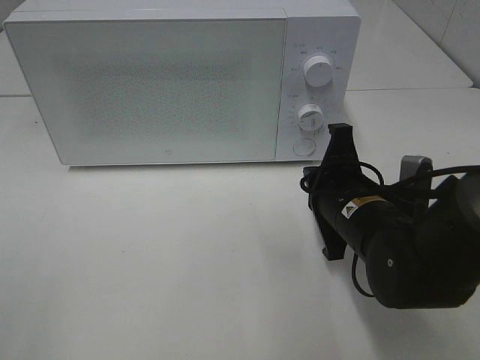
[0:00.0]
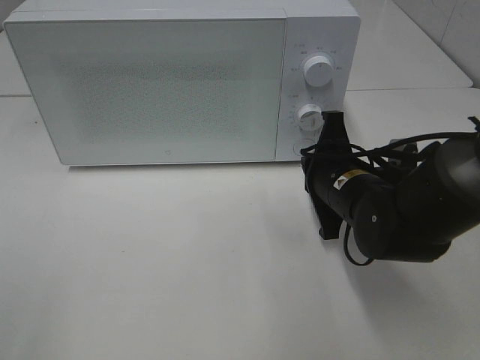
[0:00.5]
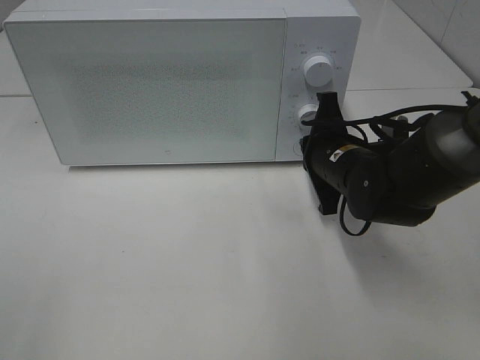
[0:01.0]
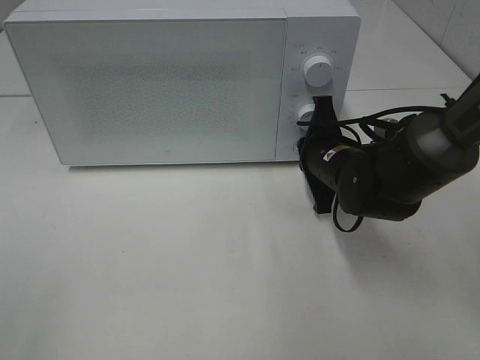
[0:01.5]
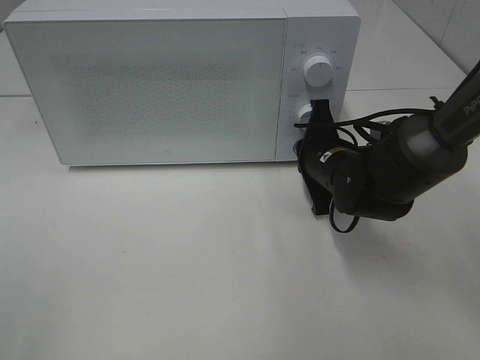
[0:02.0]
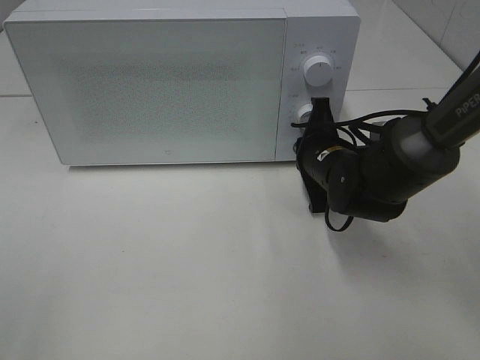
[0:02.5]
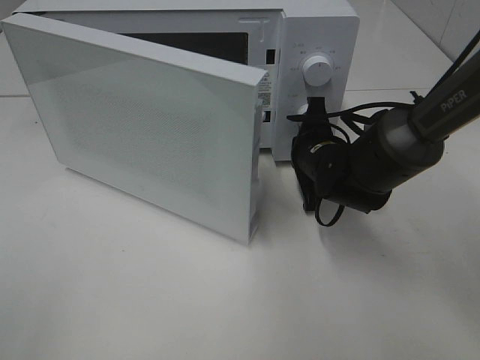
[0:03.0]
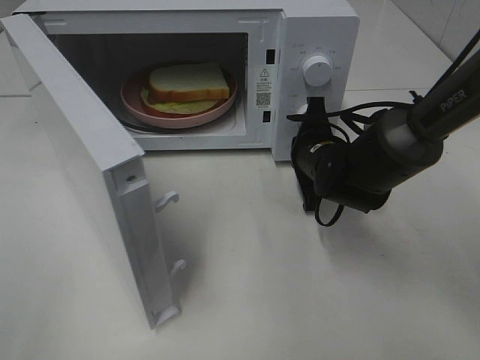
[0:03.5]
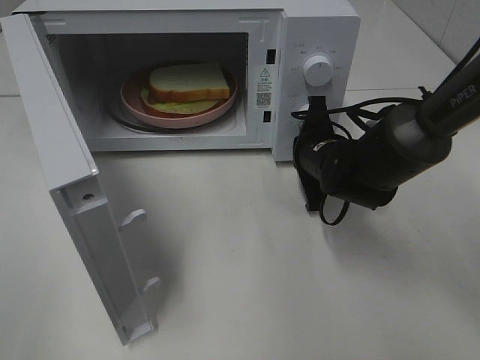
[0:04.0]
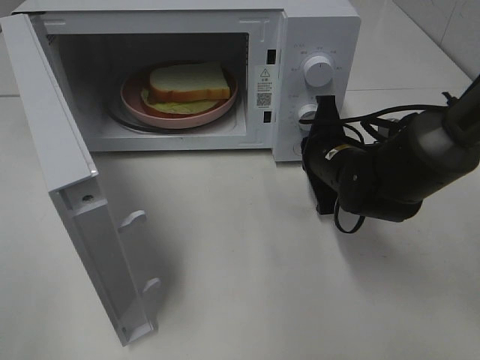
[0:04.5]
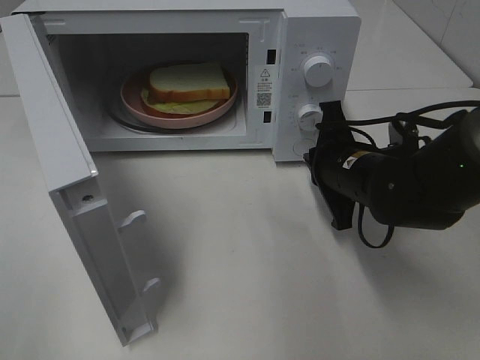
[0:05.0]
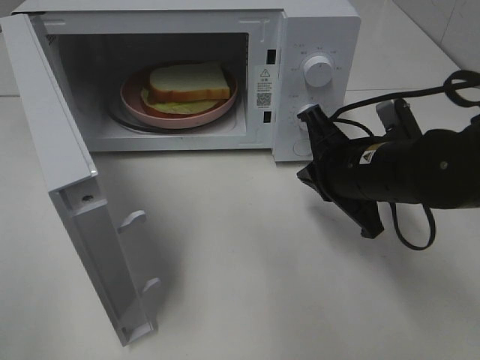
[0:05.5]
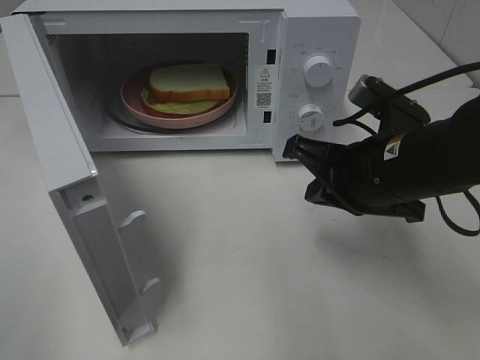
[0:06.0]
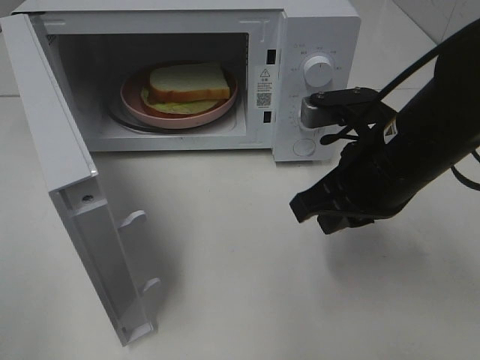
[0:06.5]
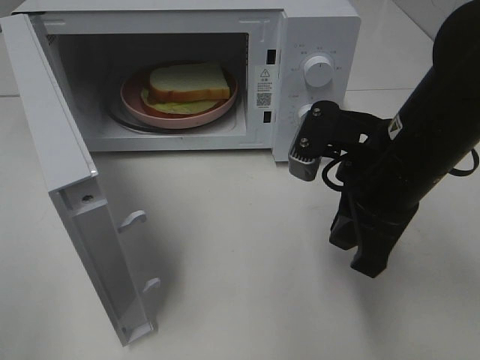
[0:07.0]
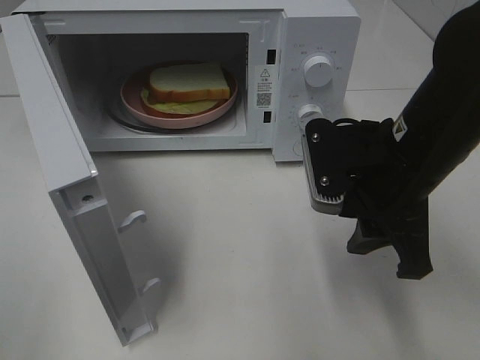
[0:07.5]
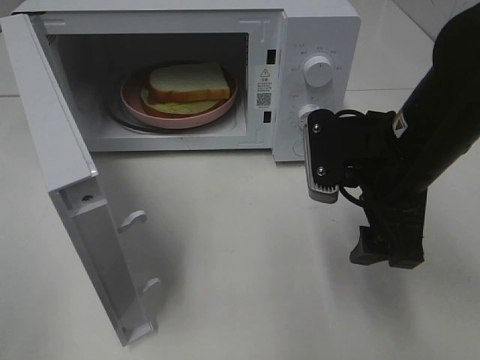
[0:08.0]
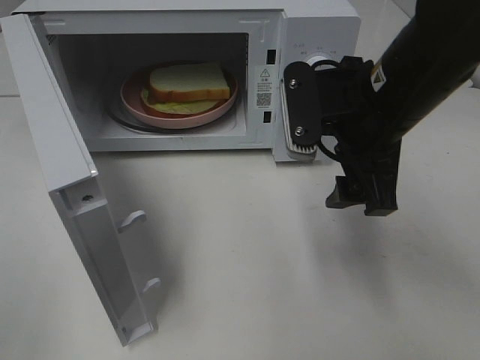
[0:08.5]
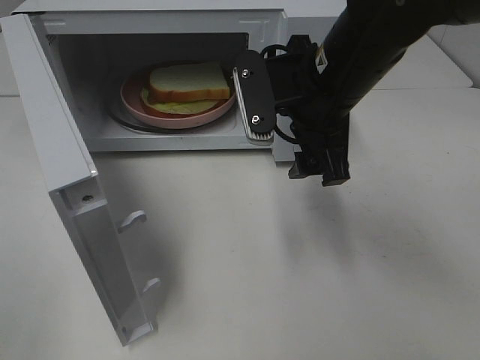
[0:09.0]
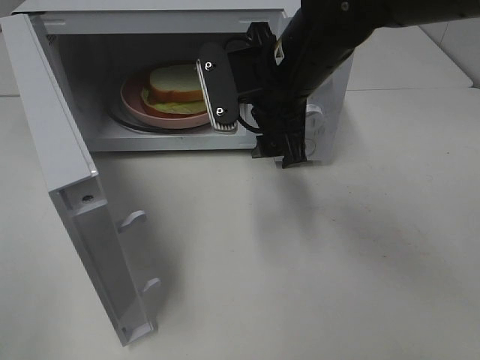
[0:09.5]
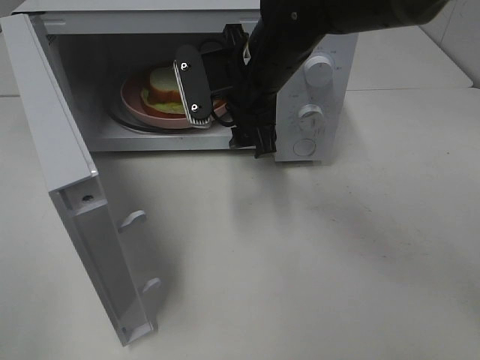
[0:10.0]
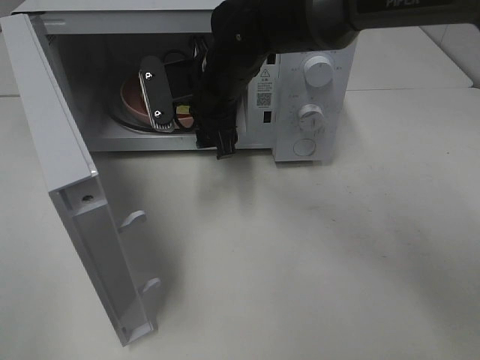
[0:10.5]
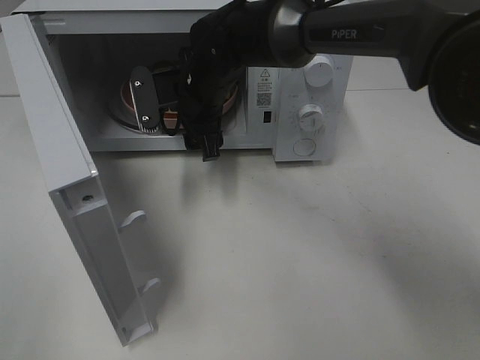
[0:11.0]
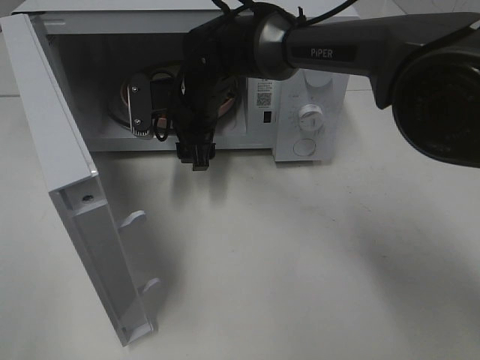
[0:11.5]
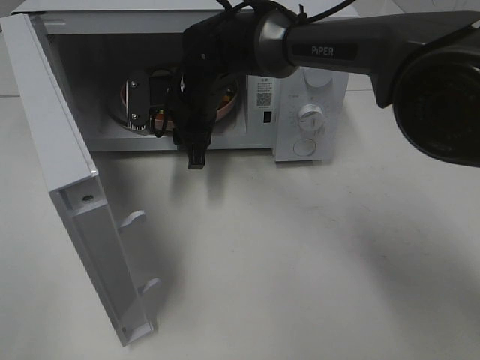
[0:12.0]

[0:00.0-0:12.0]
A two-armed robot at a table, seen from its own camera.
Task of the whole recording: Heat Sandwich.
Step, 0:00.0 to 0:04.5: Right hand: press the switch.
0:00.0 to 0:02.0: The right gripper is displaced forward by some 10 cm.
0:04.0 to 0:06.0: The right gripper is displaced backward and upward by about 15 cm.
0:06.0 to 0:08.0: The right gripper opens up.
0:08.0 to 0:10.0: The right gripper is displaced to the left and forward by about 15 cm.
0:10.0 to 0:12.0: The right gripper heads to the left, downward and forward, covering roughly 10 cm, and closes.

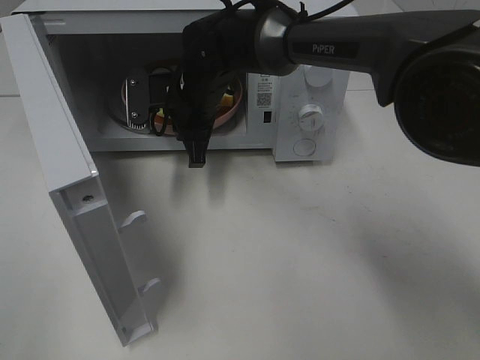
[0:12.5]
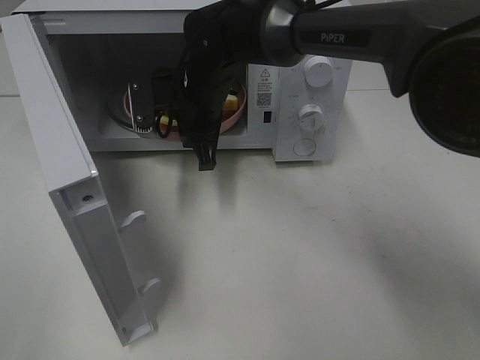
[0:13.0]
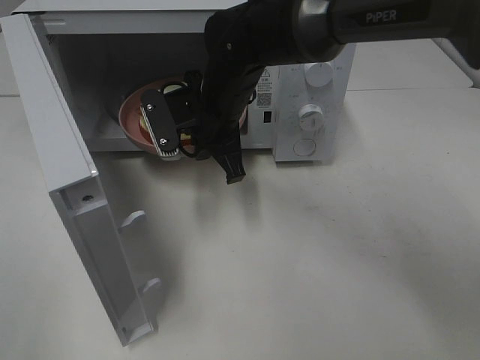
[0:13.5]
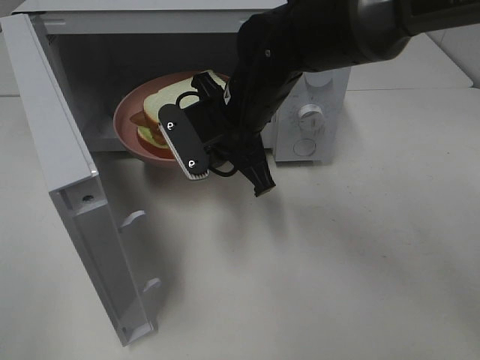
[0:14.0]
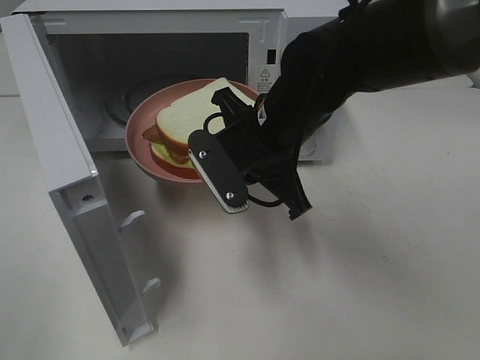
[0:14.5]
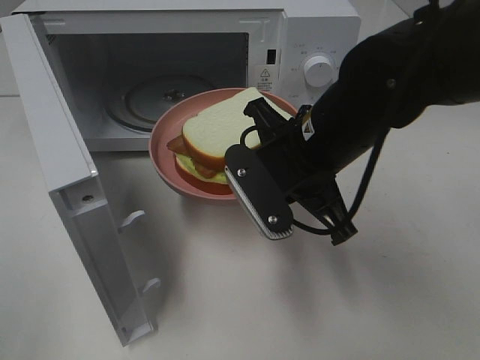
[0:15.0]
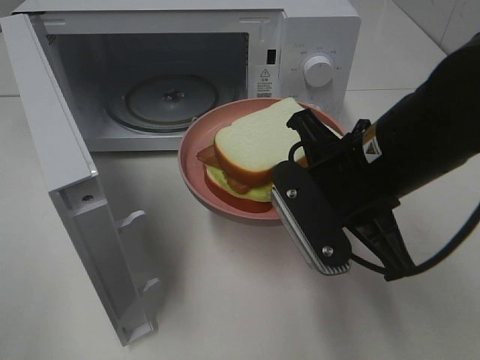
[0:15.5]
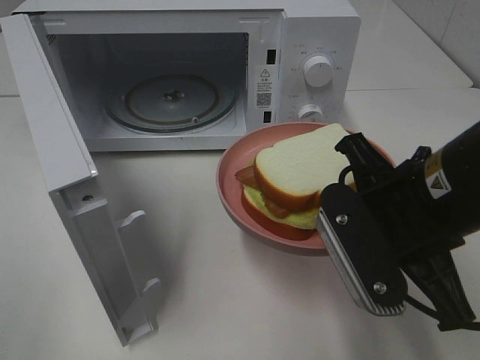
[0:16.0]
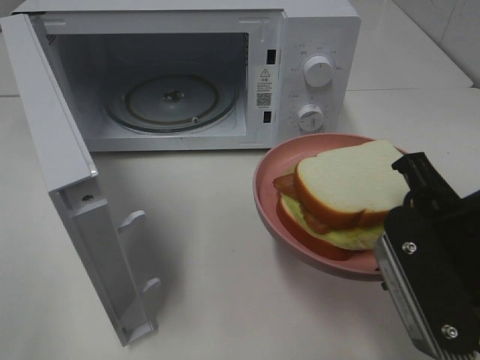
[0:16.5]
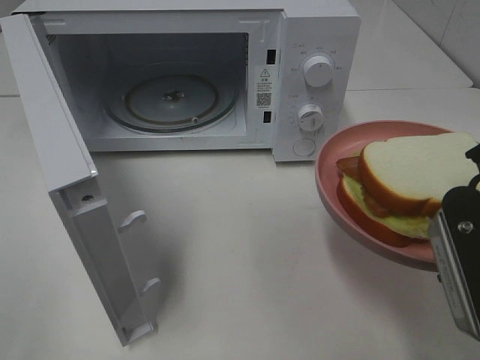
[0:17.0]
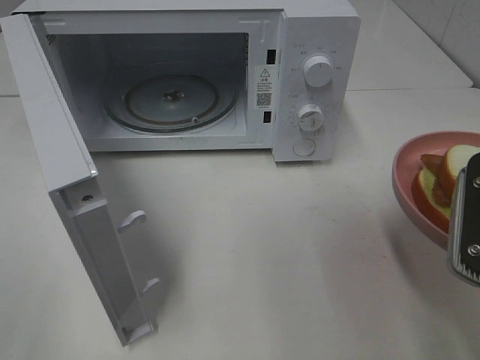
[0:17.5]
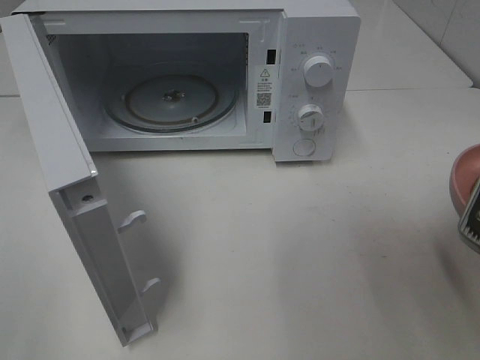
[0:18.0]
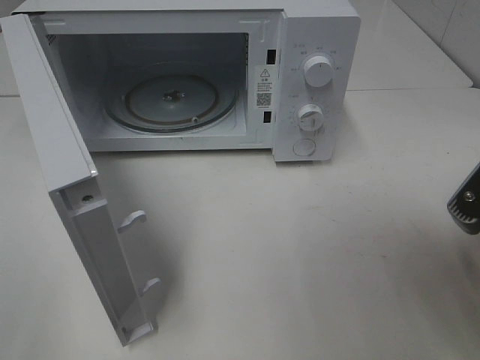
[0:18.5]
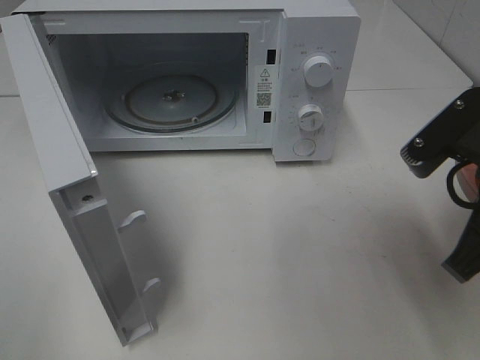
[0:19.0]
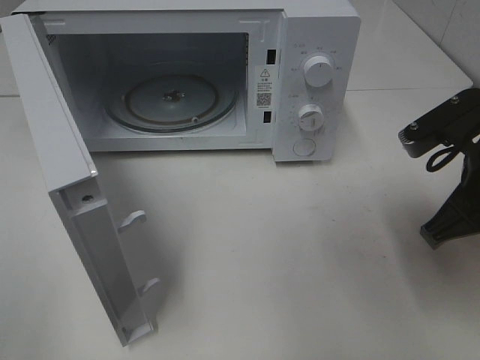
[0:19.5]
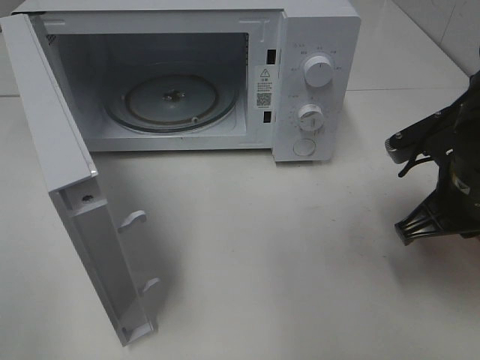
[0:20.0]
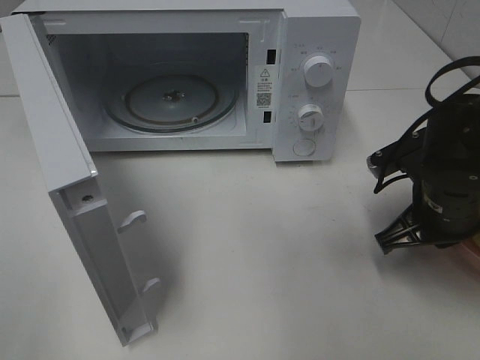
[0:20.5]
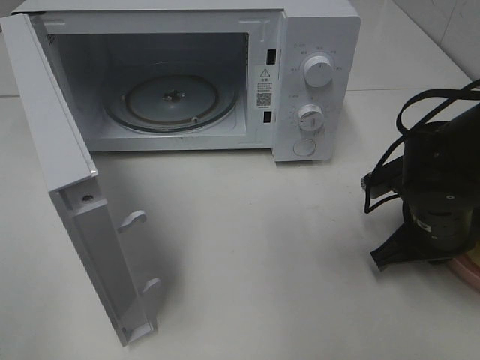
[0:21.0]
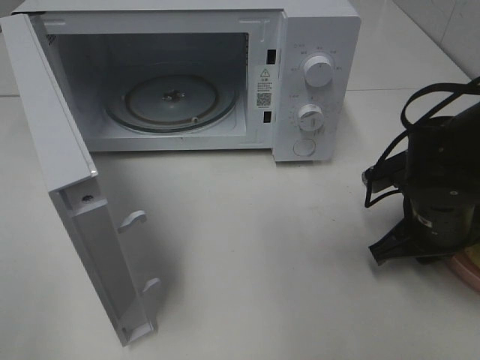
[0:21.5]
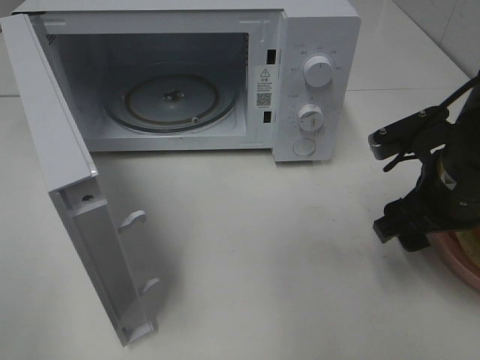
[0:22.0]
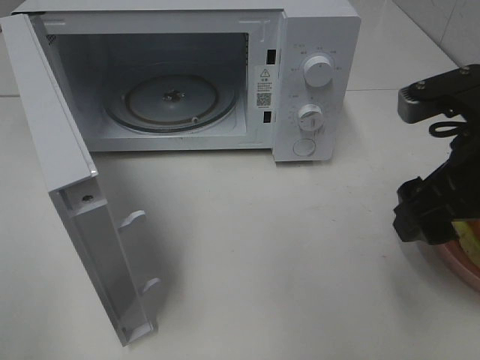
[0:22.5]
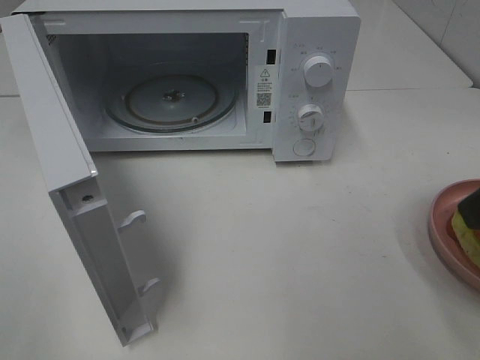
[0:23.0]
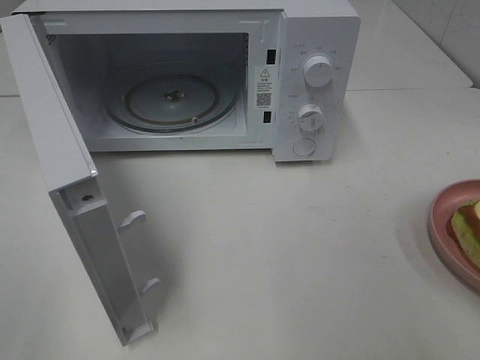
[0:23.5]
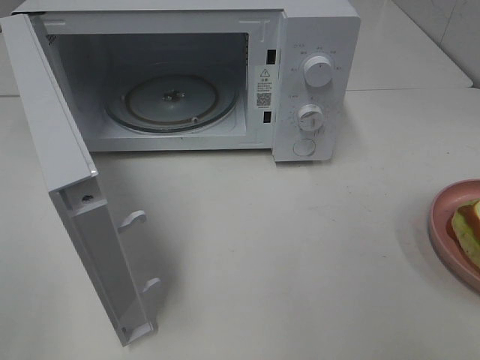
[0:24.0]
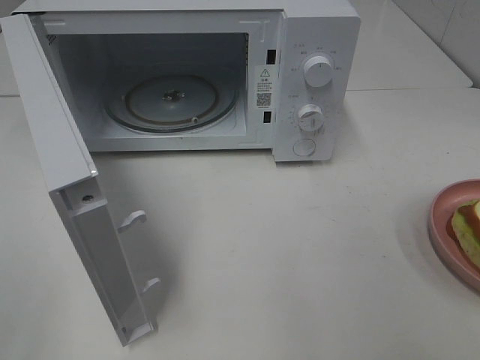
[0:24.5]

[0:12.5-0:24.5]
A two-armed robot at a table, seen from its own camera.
Task of the whole recording: Heat Sandwich.
Step, 0:12.5 to 0:22.5: Right hand: place the plate on the table.
0:12.5 to 0:14.5: The right gripper shifts some 15 cm backward and to the right.
0:14.5 to 0:16.5: The right gripper goes about 20 cm backward and to the right.
0:16.5 to 0:18.5: The right gripper moves to the right, approximately 5 cm.
0:18.5 to 0:20.5: The right gripper shifts about 15 cm forward and downward.
0:20.5 to 0:22.5: The right gripper is displaced upward and backward by about 10 cm, and opens up.
0:22.5 to 0:24.5: The right gripper travels backward and to the right by approximately 20 cm.

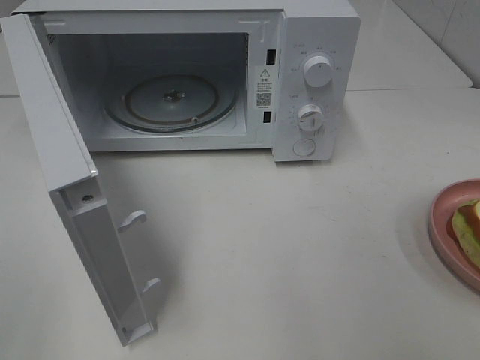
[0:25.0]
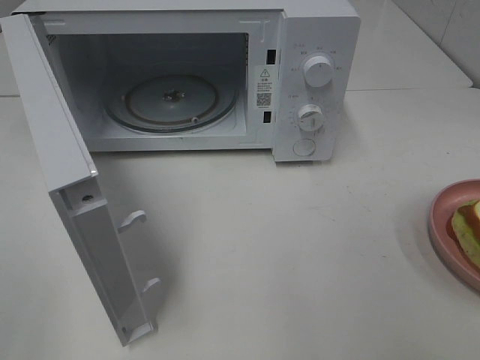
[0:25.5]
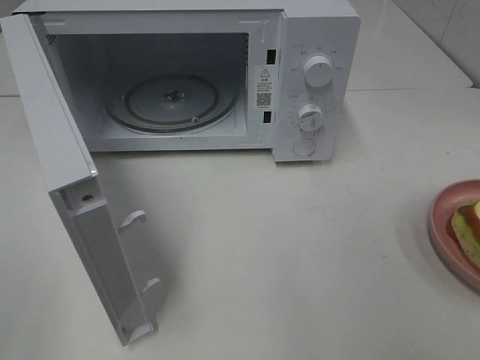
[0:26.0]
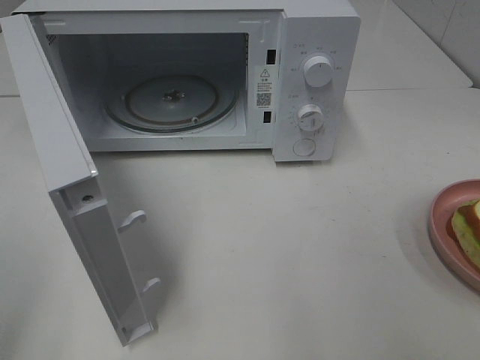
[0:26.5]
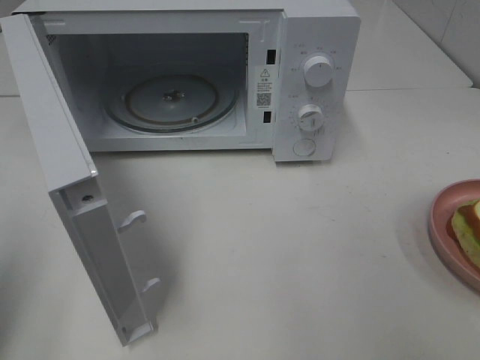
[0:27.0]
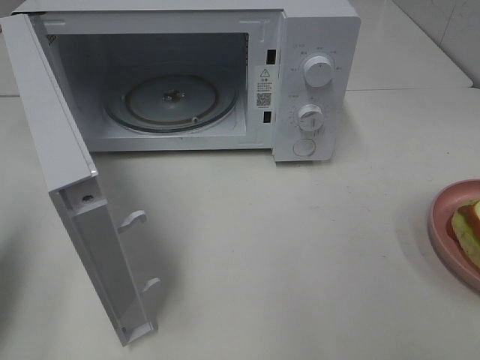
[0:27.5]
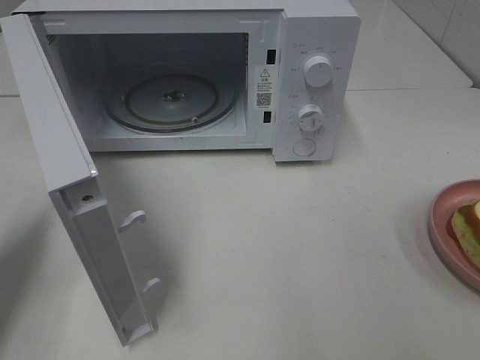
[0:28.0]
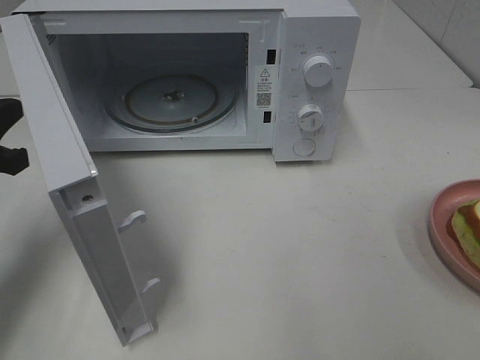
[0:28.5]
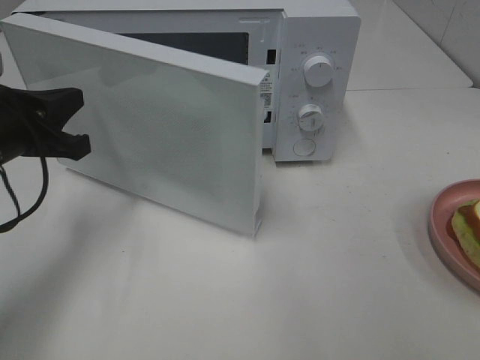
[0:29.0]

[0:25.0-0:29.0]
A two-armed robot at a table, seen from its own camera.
Task of the whole recording: Heat Sandwich.
0:25.0 to 0:27.0: The left gripper goes about 10 cm forward, and closes up.
0:27.0 to 0:29.0: The left gripper moves forward, downward and to the right, roughly 20 cm.
